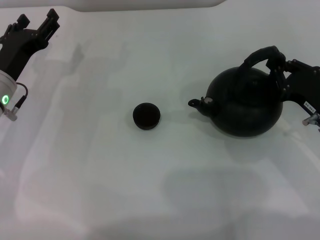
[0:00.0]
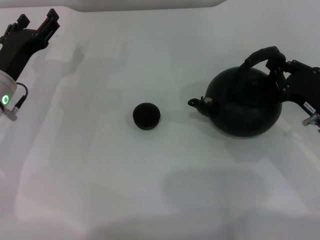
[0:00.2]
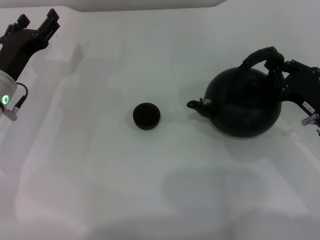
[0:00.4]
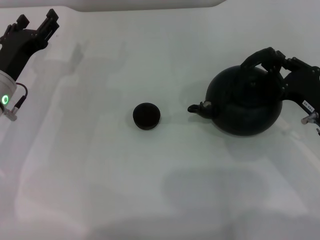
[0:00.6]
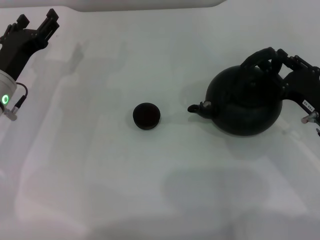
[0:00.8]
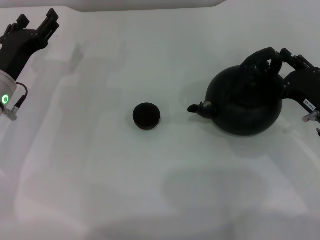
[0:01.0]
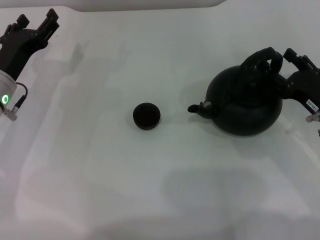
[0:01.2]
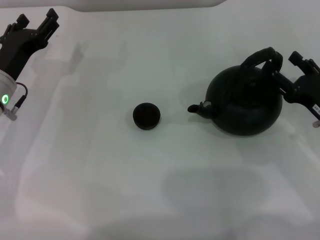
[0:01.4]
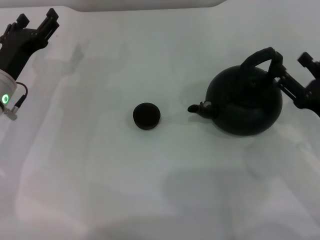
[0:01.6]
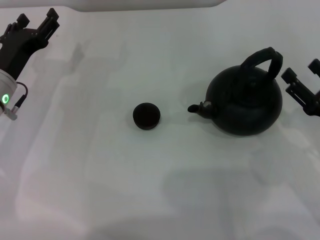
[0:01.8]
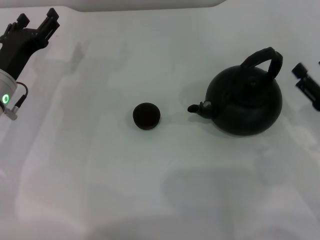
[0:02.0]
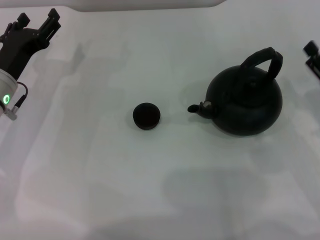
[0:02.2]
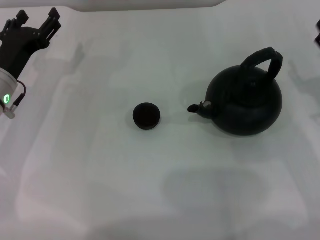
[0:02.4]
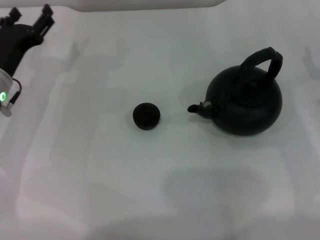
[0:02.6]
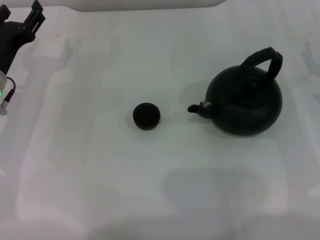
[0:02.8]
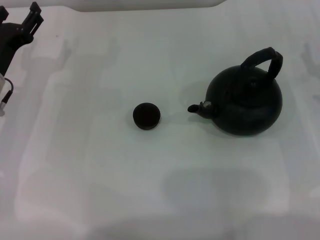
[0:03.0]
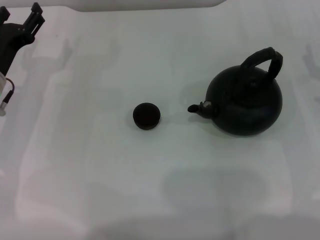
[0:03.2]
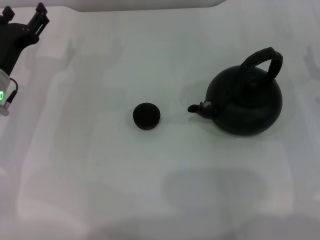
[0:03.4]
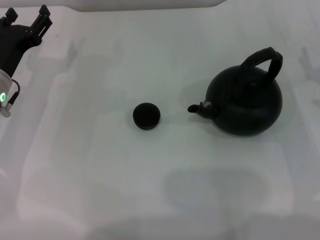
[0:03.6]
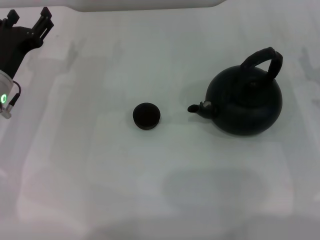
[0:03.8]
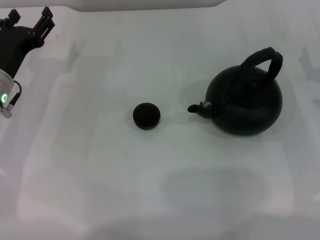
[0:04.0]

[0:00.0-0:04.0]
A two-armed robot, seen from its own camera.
Task of the whole recording: Grasp the handle of the teapot with one hand and pour tea into the teacup.
0:00.0 to 0:01.4: The right gripper opens up.
0:01.4 to 0:02.6: The right gripper changes place by roughly 5 cm.
0:02.6 to 0:04.0: The grippers stay close to where they were, moving slightly.

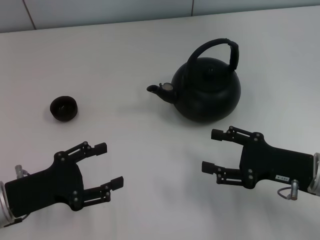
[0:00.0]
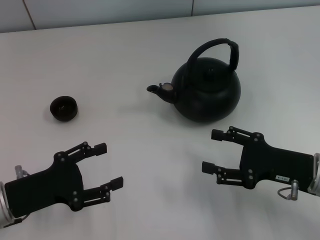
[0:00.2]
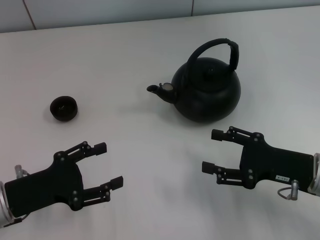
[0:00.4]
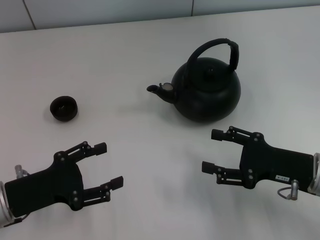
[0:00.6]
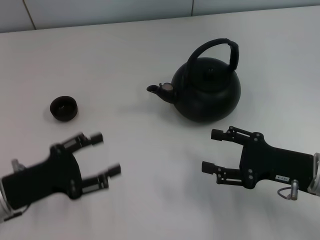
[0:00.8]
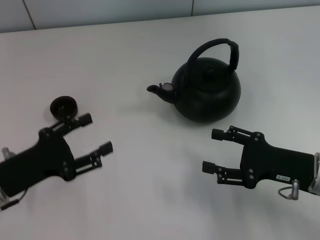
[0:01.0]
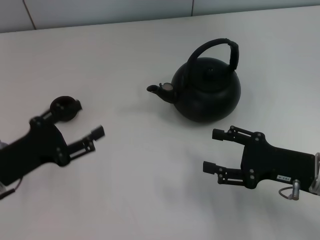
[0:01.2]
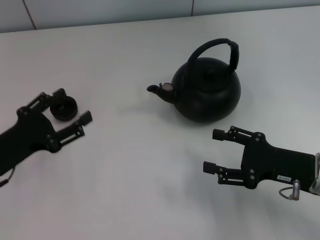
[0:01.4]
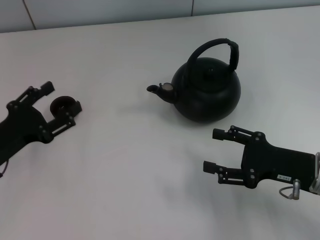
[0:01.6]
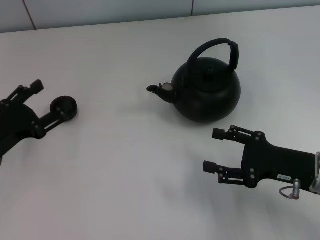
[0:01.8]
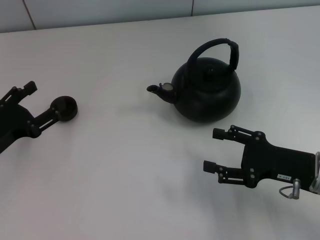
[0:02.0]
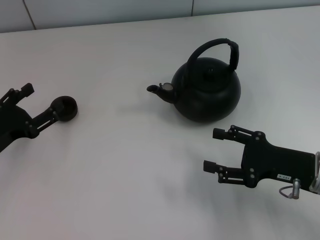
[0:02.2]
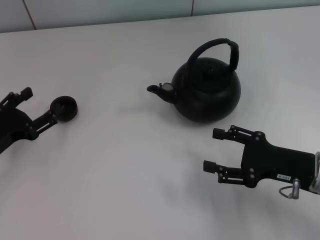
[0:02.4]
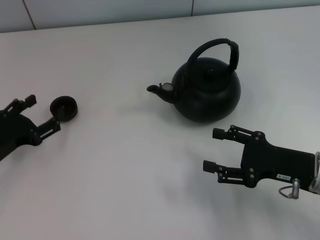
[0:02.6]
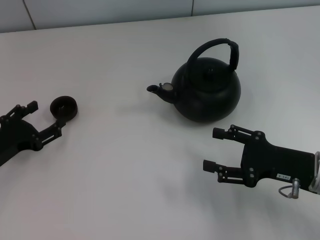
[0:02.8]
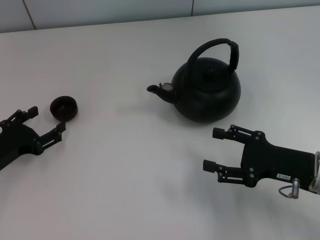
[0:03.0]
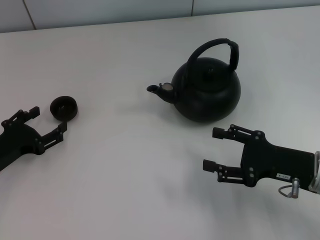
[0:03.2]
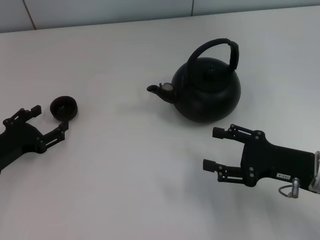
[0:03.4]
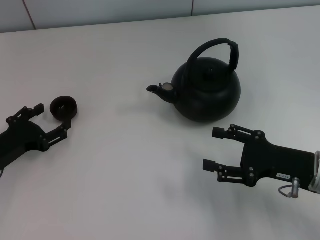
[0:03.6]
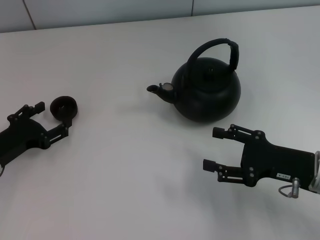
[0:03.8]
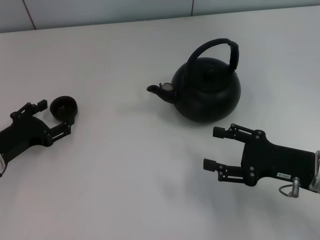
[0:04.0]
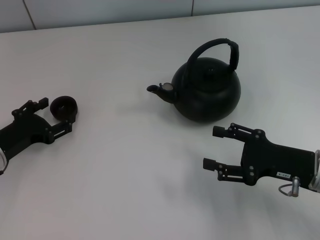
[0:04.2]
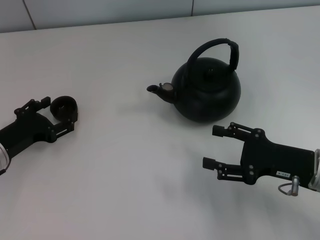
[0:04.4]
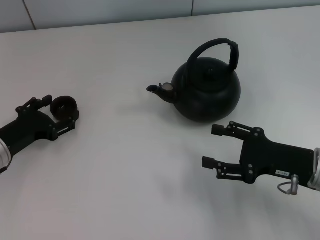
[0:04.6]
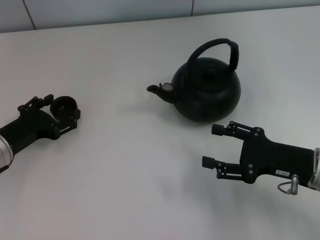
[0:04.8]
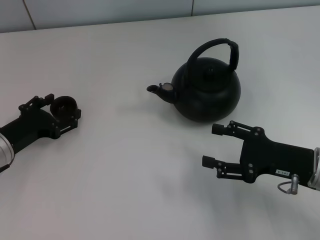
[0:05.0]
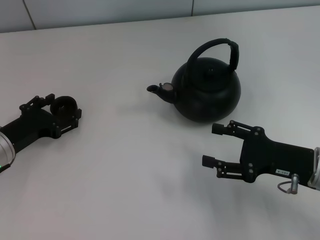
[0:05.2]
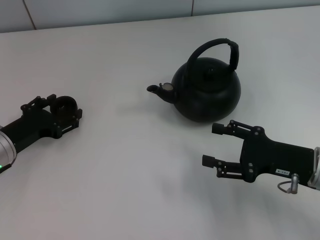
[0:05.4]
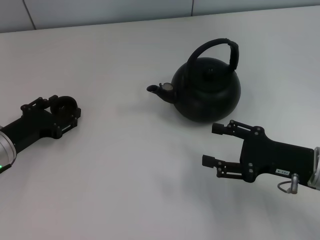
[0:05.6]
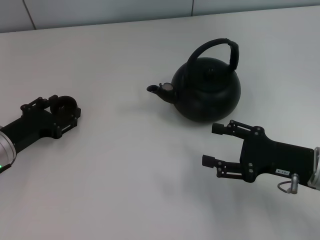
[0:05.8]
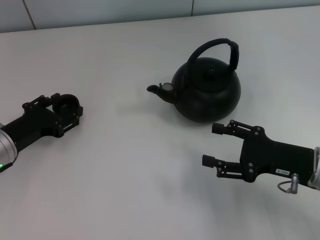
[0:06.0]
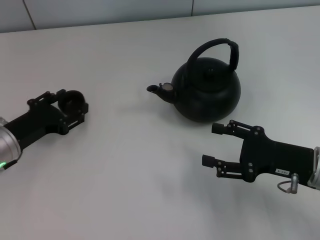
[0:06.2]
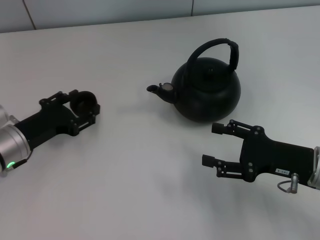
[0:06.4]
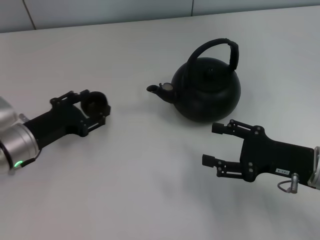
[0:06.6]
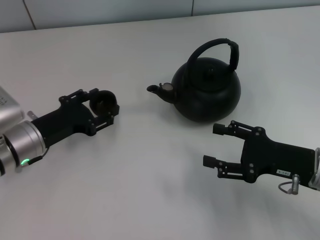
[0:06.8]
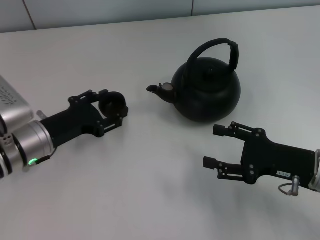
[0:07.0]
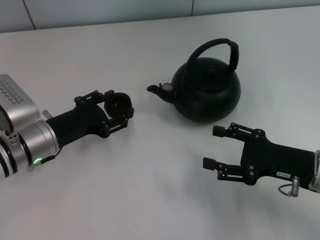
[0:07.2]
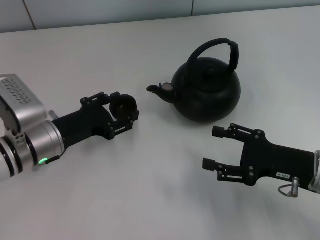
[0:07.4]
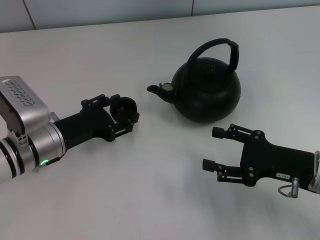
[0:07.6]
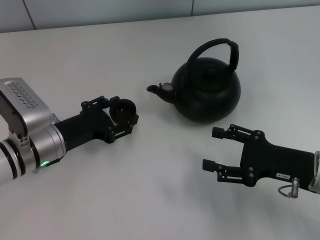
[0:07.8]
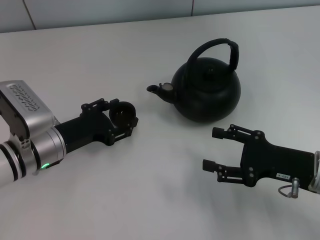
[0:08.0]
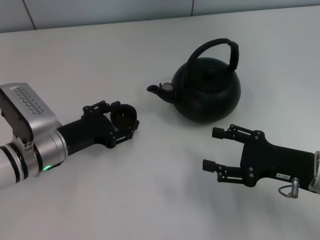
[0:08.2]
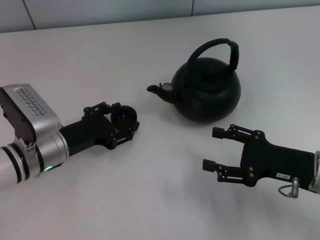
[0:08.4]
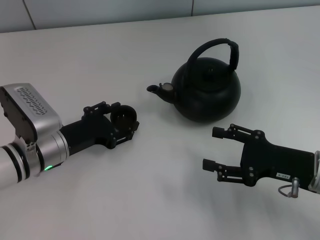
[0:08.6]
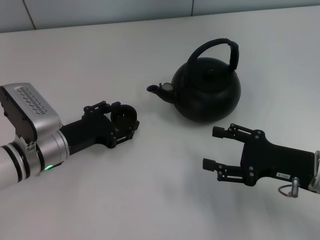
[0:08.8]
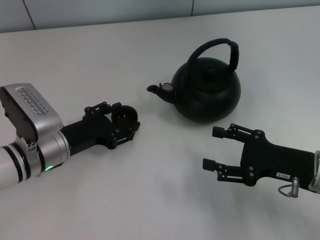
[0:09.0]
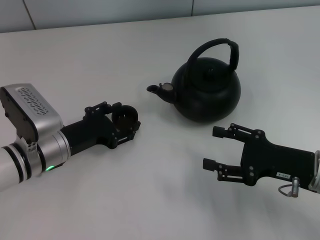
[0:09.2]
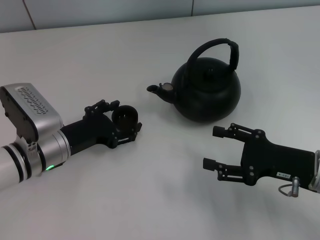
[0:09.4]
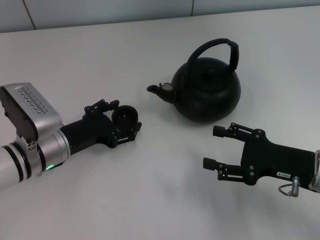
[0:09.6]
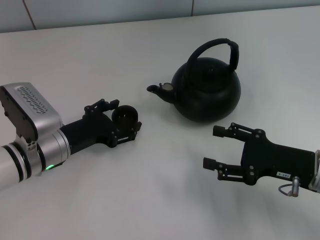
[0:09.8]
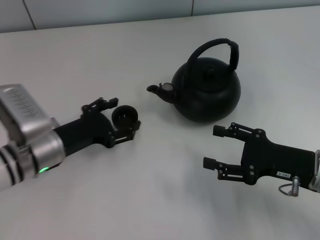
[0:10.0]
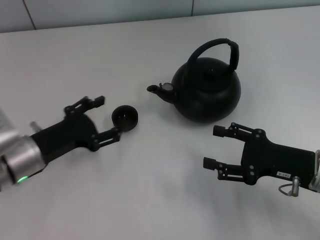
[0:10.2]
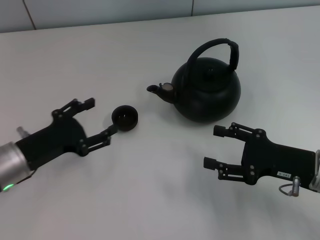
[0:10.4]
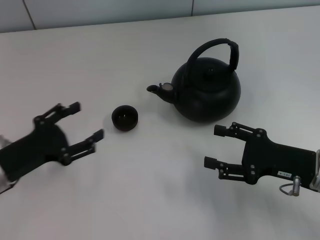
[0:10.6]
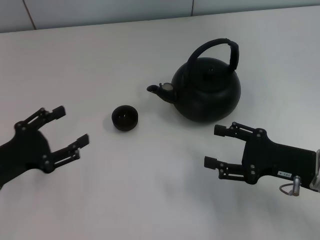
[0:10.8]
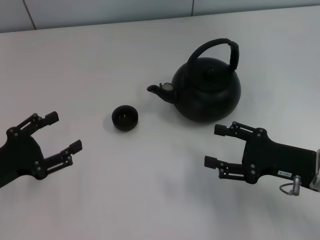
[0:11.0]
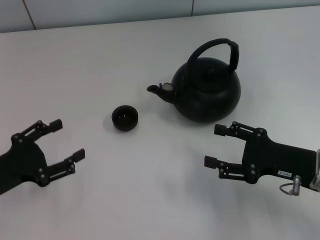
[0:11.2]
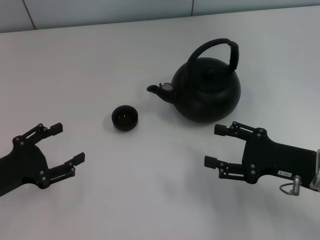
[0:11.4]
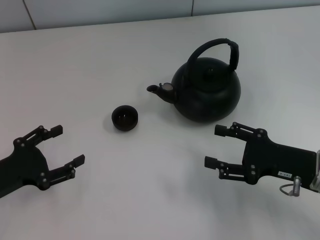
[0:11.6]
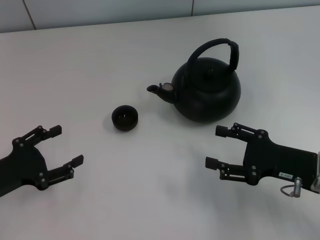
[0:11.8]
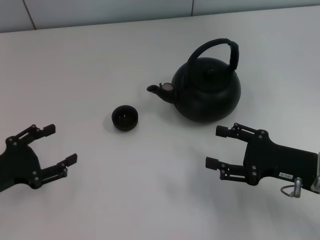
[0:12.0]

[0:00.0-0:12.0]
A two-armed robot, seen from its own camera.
Task of the whole recording: Grasp the handle of the teapot with one hand and pour tea into the teacup.
Step, 0:00.0 to 0:06.0: Pick up the teacup with the left gripper.
Step, 0:06.2 to 0:10.4: Place the teacup in the center of view with the left gripper.
0:03.0 to 0:04.4: There are only small adjustments of the grippers.
0:04.4 to 0:06.0: The left gripper closes its fingers.
0:06.0 to 0:07.6: The left gripper travels to the right by roughly 5 cm.
0:07.6 to 0:09.0: The grippers make only small movements.
0:09.0 to 0:10.4: The left gripper changes place by approximately 5 cm, and opens.
0:10.4 to 0:12.0: The left gripper moves to the left, roughly 5 cm.

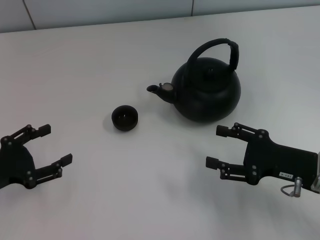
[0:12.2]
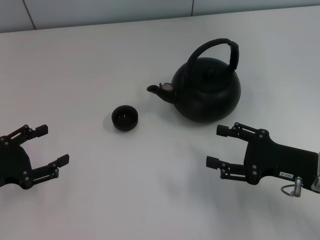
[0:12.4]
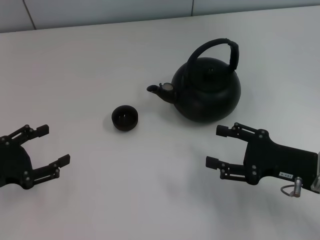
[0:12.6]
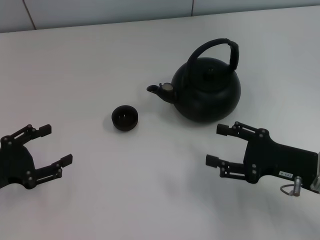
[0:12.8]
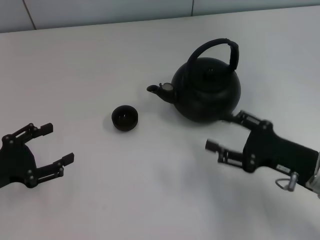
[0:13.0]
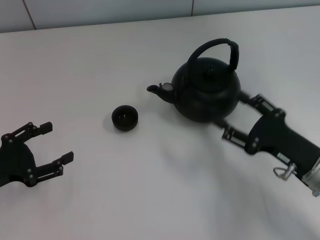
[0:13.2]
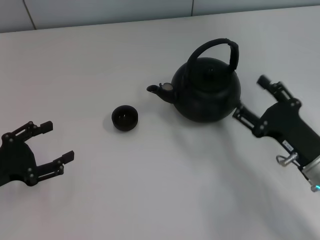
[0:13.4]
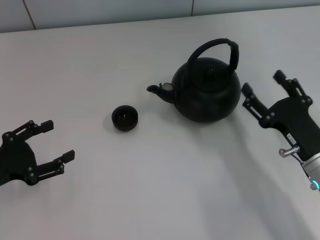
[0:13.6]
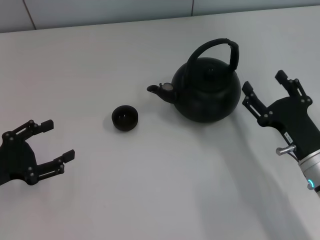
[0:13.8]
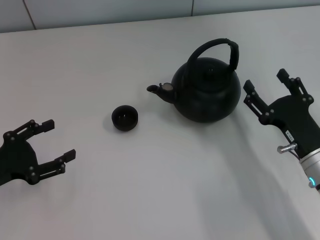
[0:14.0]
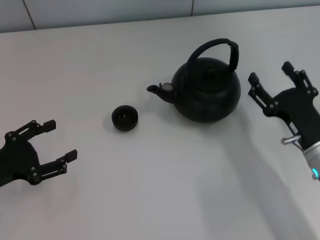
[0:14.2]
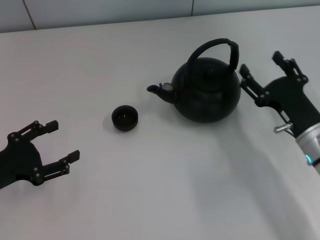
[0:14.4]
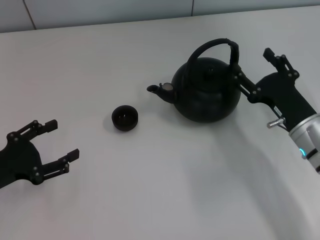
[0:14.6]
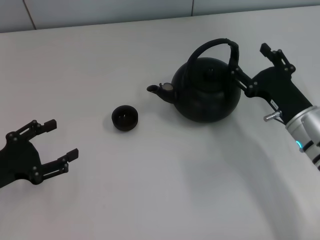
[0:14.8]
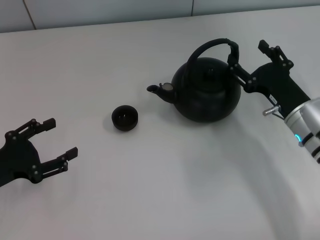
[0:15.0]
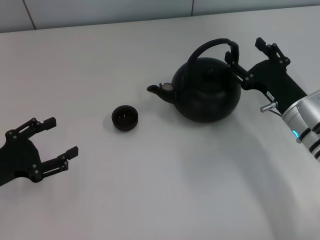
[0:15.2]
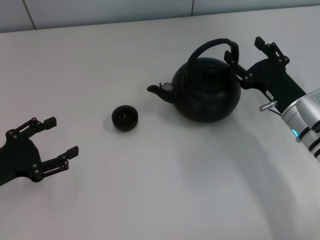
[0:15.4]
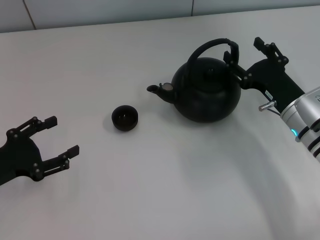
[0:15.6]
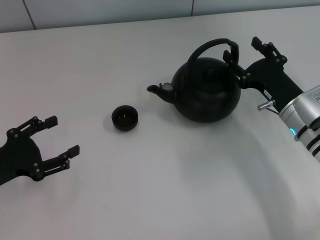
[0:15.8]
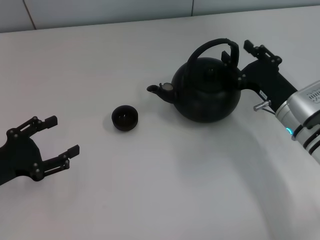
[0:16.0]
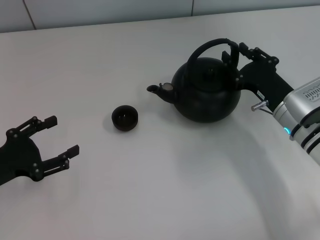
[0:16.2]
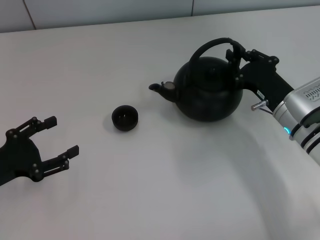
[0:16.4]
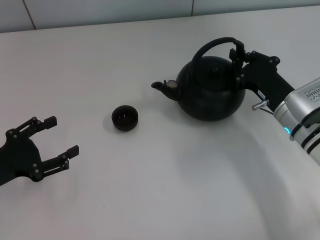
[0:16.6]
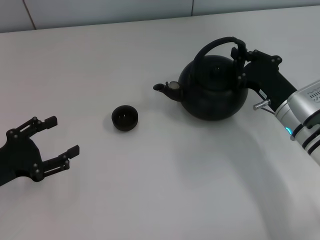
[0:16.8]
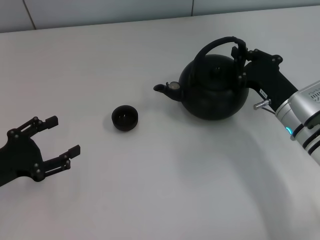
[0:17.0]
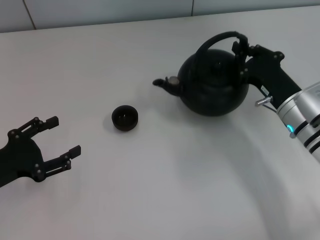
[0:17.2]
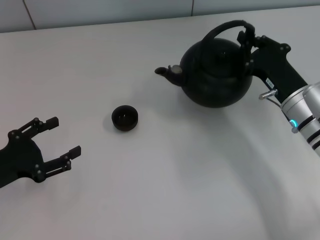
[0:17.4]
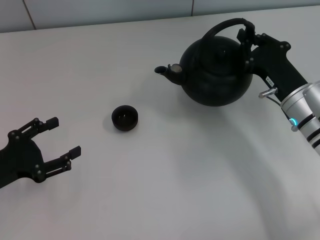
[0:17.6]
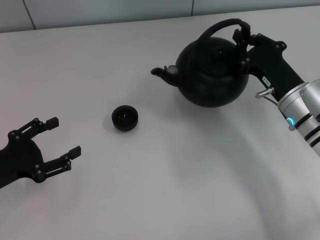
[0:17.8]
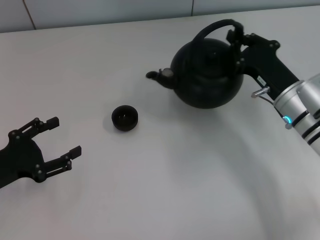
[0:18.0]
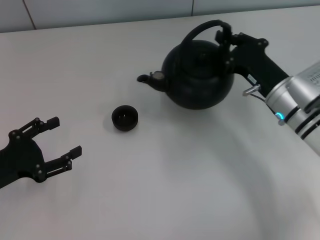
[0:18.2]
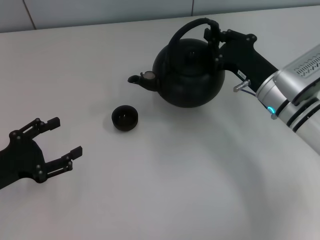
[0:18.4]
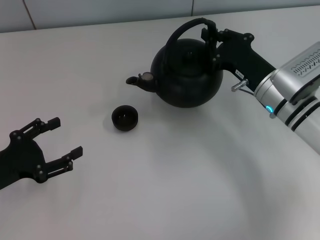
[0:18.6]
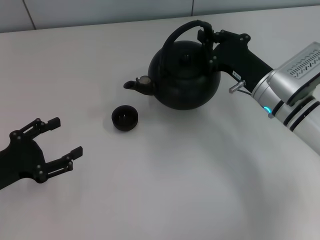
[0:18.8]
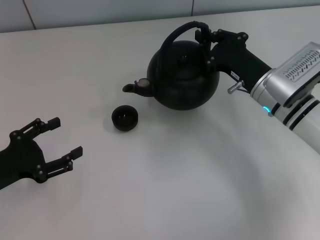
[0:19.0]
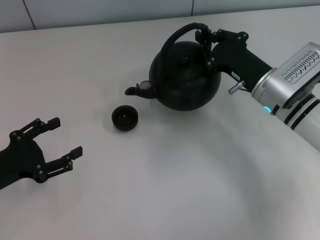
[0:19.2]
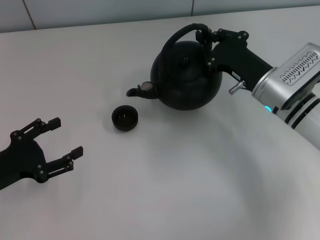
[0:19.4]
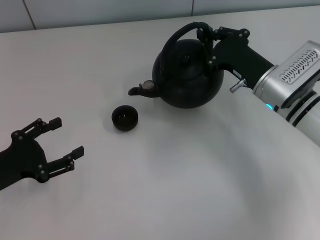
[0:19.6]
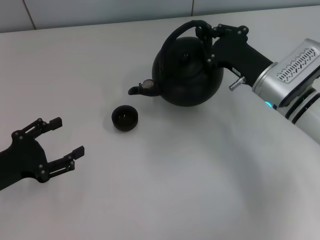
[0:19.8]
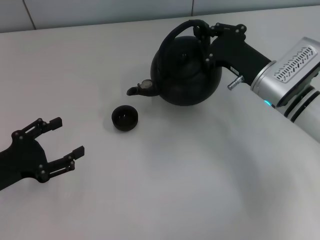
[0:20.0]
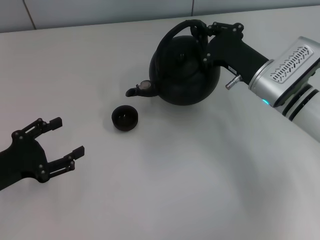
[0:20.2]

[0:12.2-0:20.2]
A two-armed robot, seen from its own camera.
Task of the whole recording: Grasp the handle of the teapot with one hand and pour tea into the teacup.
Step, 0:12.2 to 0:17.2: Pick up the teapot with the right gripper.
0:13.8 to 0:15.4: The right gripper moves forward, roughly 10 cm.
0:15.4 to 0:17.0: The right gripper closes up.
0:17.0 to 0:18.6: The grippers make only small movements.
0:18.6 to 0:20.2: The grippers move only a little.
